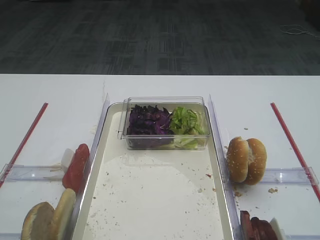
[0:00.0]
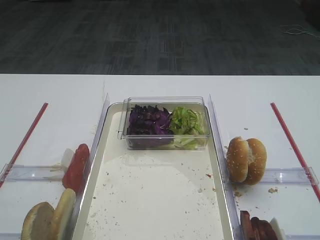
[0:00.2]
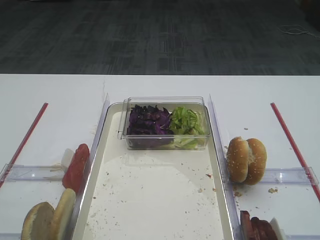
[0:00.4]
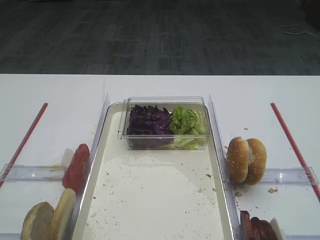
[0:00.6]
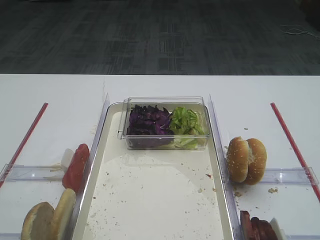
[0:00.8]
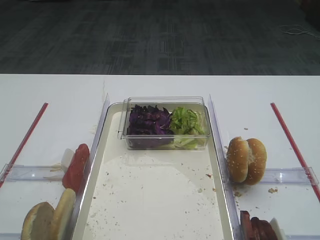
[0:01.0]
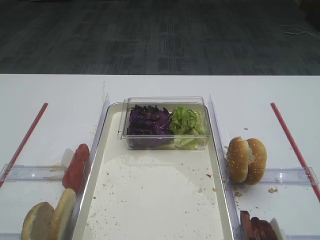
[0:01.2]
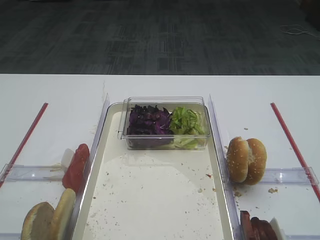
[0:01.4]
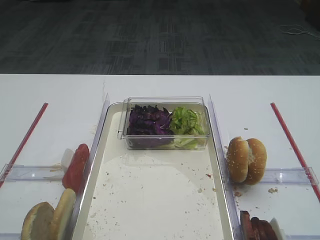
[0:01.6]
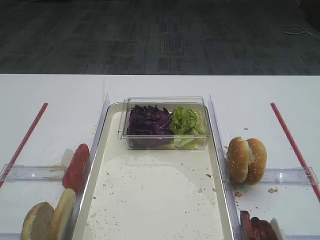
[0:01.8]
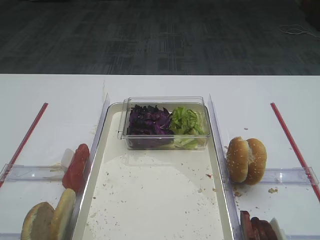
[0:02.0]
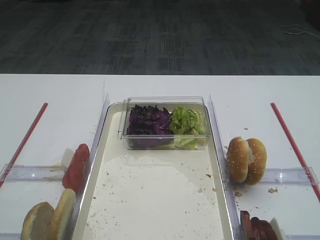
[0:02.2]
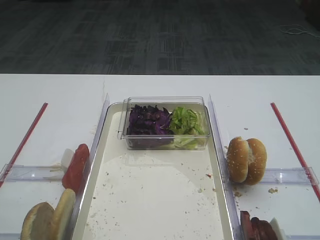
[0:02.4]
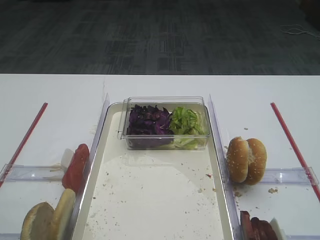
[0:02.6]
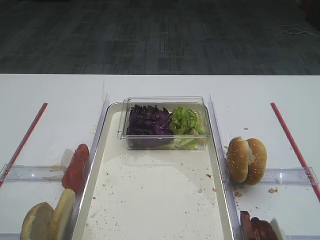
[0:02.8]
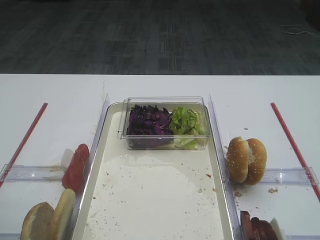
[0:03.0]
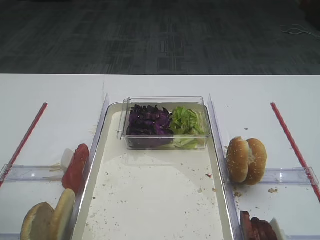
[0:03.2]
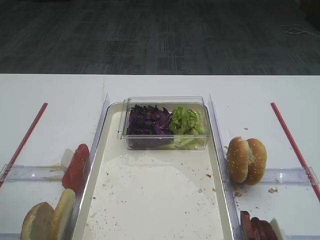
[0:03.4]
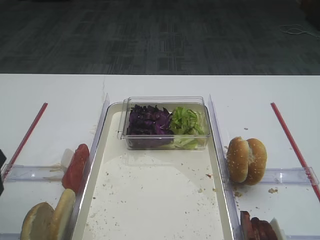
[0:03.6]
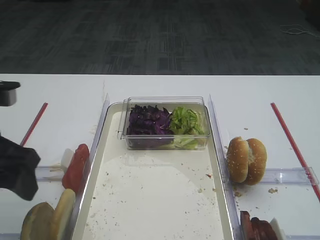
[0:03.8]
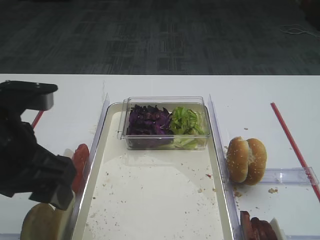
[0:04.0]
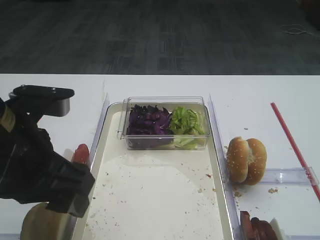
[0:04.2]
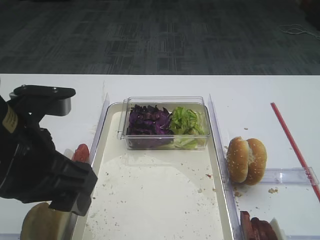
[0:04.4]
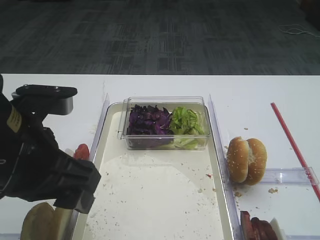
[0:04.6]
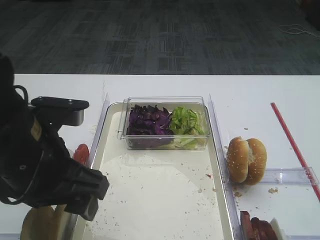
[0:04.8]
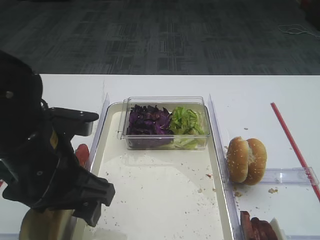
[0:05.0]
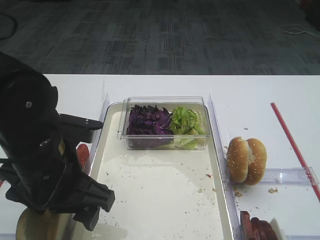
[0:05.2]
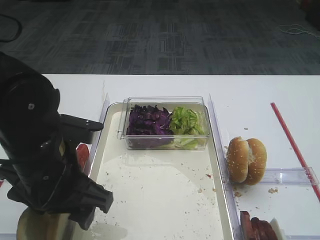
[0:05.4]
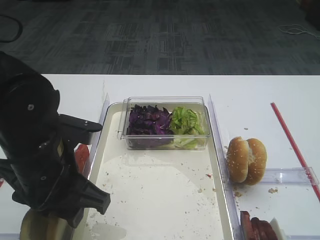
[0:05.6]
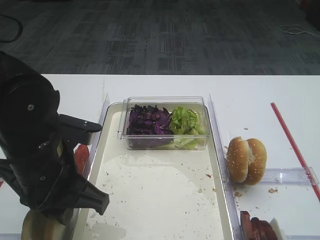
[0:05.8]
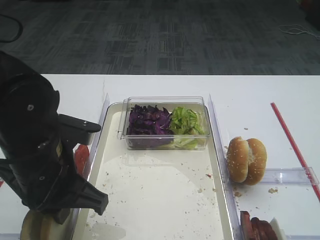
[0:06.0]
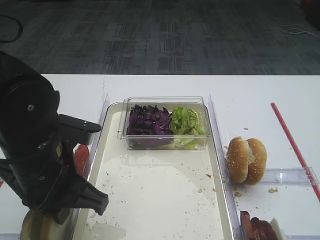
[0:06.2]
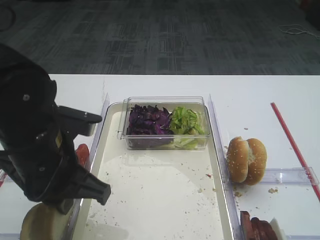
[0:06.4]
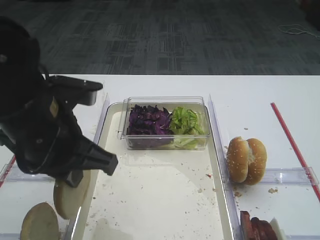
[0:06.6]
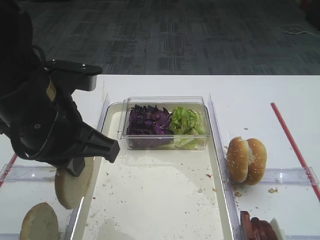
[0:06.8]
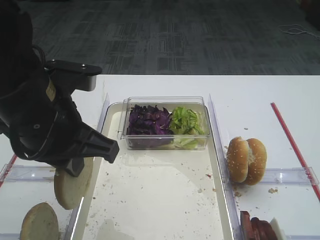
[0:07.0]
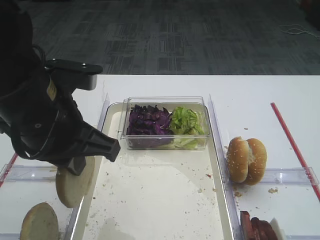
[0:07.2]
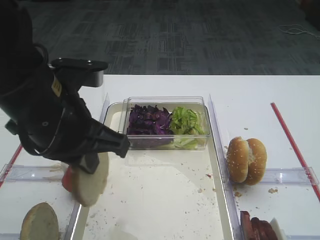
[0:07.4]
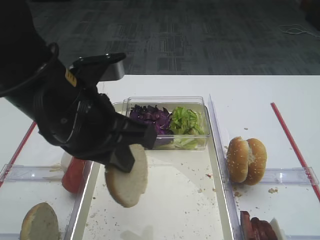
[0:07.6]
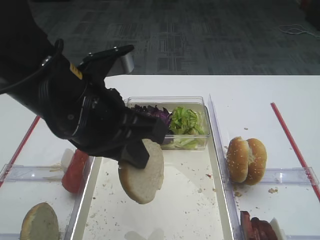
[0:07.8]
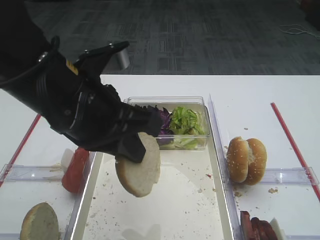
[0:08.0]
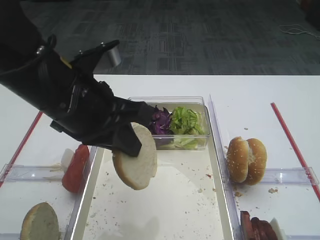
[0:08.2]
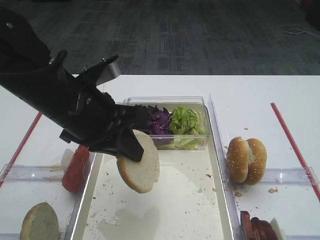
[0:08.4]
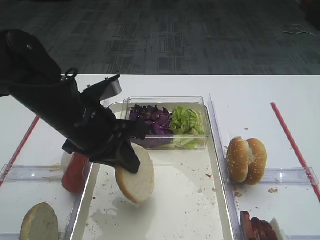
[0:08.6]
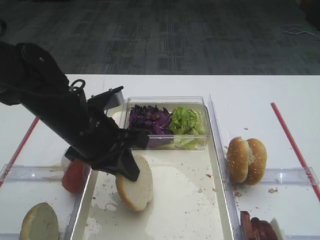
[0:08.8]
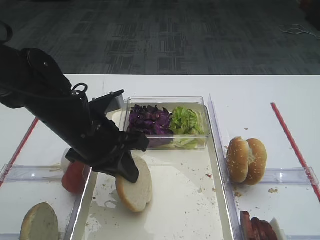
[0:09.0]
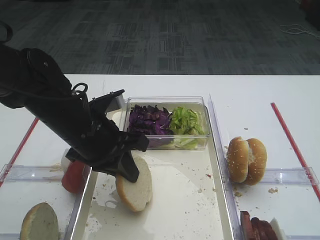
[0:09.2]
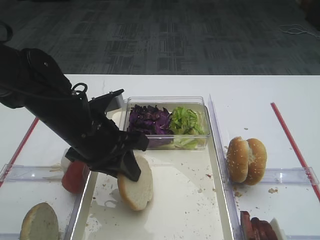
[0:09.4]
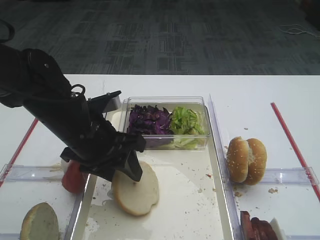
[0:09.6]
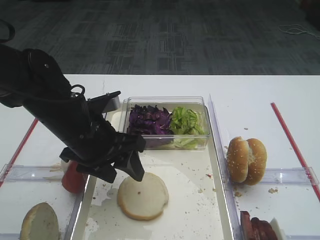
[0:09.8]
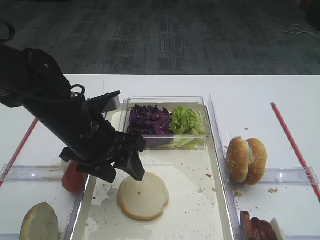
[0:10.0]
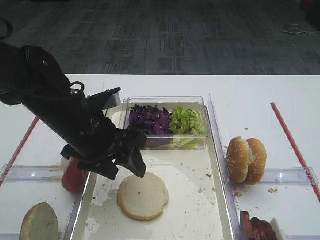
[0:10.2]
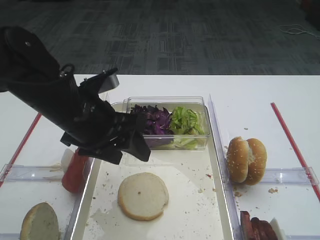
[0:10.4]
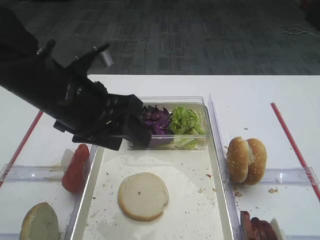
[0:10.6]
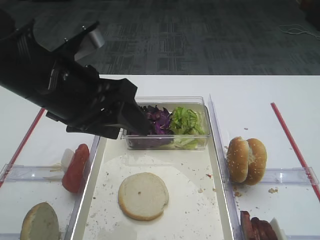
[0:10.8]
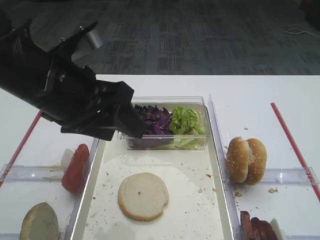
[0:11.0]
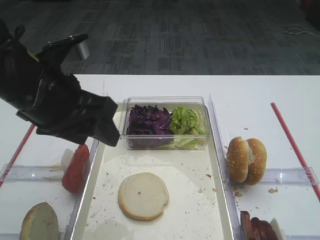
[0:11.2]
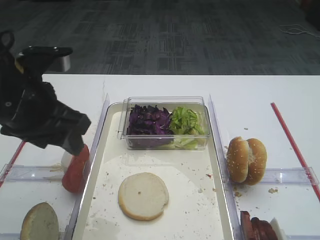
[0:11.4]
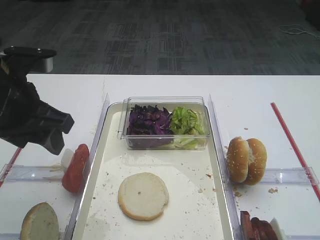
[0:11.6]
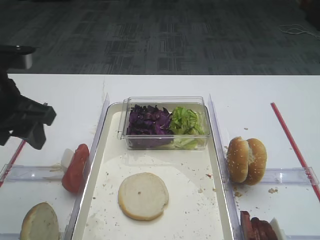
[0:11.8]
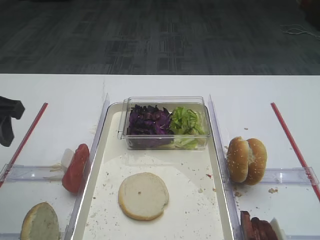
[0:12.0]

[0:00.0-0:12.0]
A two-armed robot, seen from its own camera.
Step, 0:00.0 to 0:06.4: Pick up the bread slice with the left gripper.
Step, 0:06.6 to 0:09.8: Place the bread slice on the tray with the left gripper.
0:03.0 to 0:04.4: The left gripper heads to the right, covering approximately 15 cm.
0:04.4 to 0:06.0: The left gripper is displaced downward by about 5 cm, and closes.
0:06.0 to 0:07.6: The left gripper is displaced upward by some 10 cm.
0:07.6 to 0:09.0: The left gripper is displaced downward and forward by roughly 10 cm.
0:09.0 to 0:10.4: The left gripper opens up.
0:10.4 to 0:12.0: The left gripper shifts some 15 cm to the left.

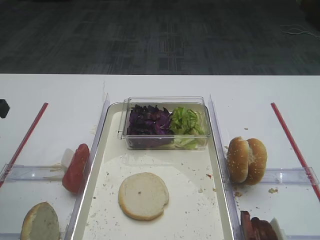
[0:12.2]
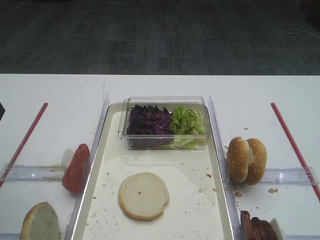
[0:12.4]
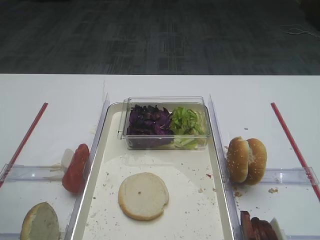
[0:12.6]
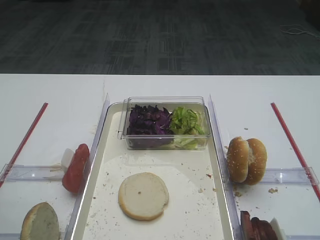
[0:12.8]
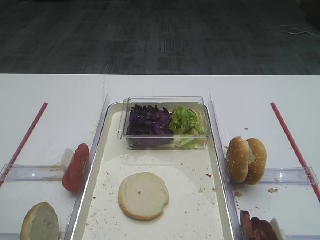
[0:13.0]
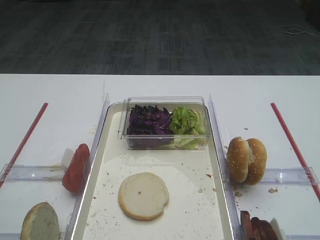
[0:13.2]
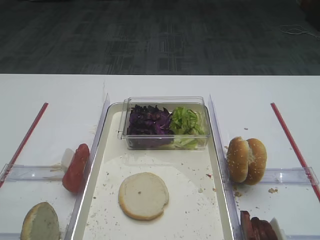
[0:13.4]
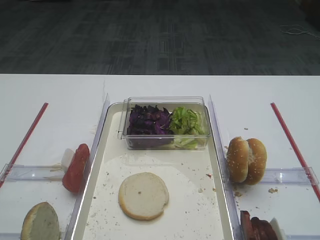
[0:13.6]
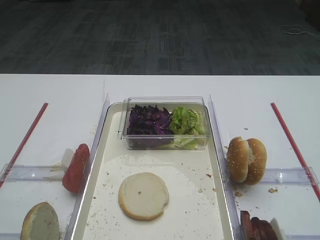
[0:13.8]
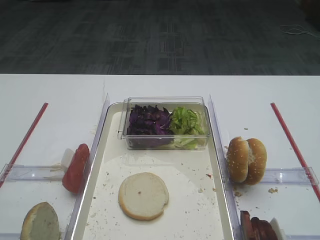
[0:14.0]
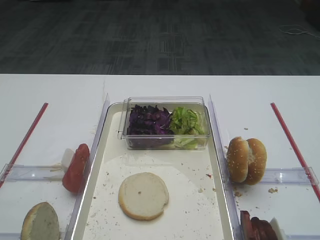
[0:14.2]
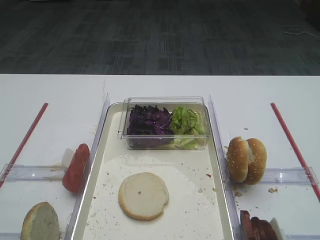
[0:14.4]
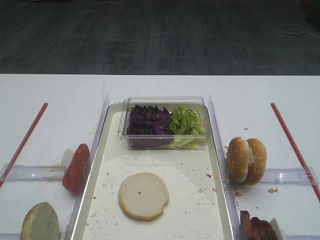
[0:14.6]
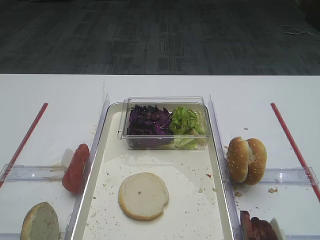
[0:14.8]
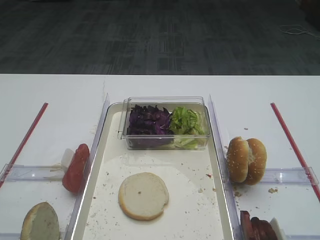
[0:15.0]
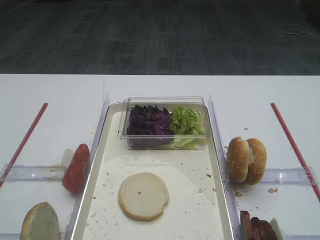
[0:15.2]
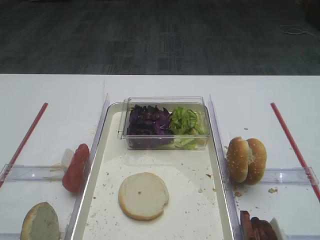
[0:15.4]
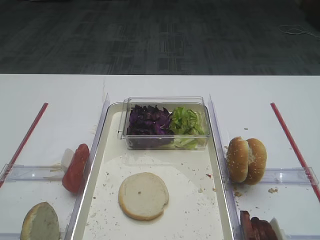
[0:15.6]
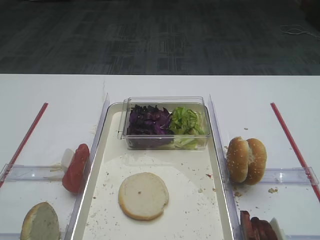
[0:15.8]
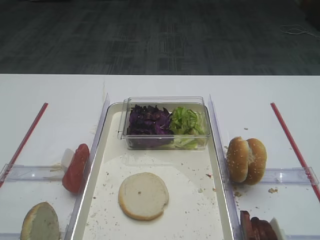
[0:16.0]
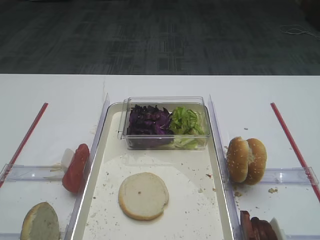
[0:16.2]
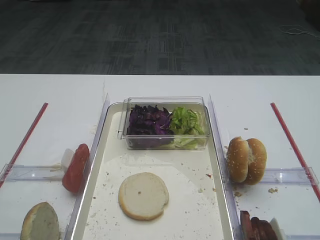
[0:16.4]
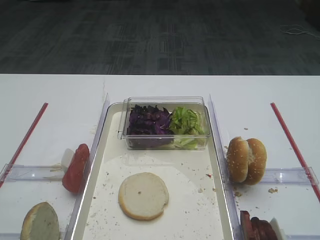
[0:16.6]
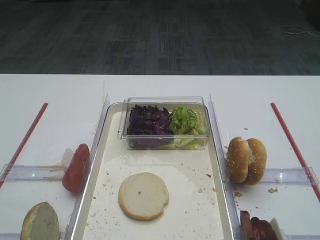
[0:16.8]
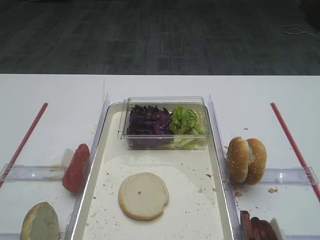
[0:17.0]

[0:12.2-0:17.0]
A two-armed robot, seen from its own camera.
0:12.2 to 0:13.8: The left gripper heads backward, covering approximately 20 cm.
0:15.4 to 0:17.0: Both grippers stay about where they are.

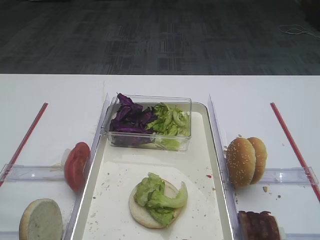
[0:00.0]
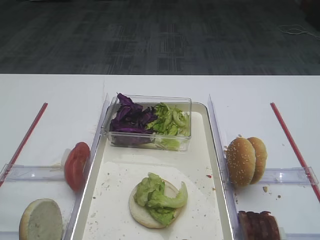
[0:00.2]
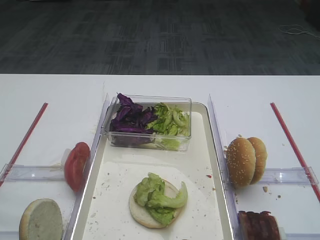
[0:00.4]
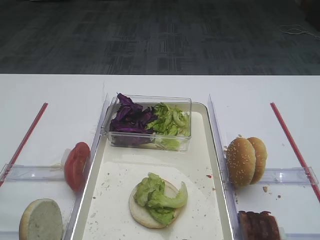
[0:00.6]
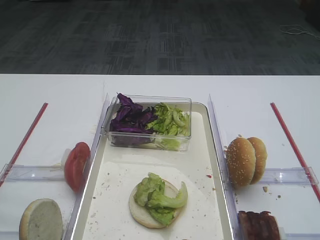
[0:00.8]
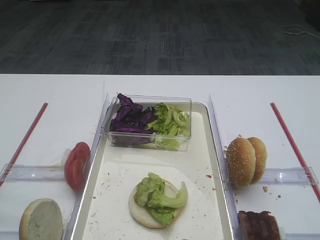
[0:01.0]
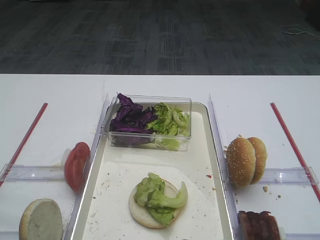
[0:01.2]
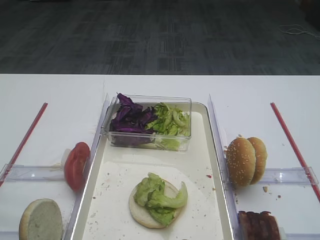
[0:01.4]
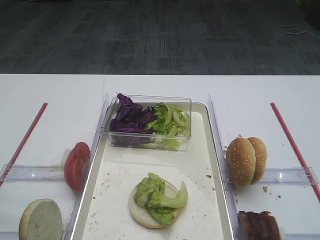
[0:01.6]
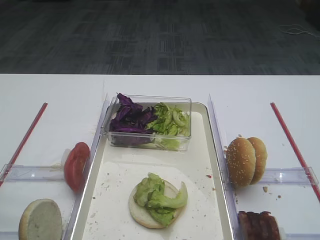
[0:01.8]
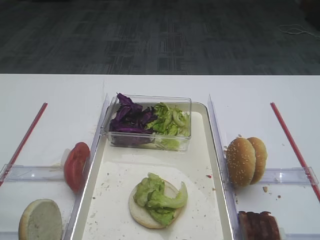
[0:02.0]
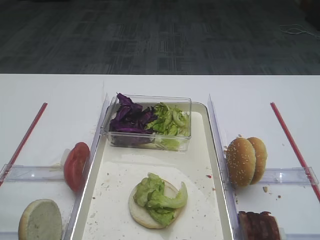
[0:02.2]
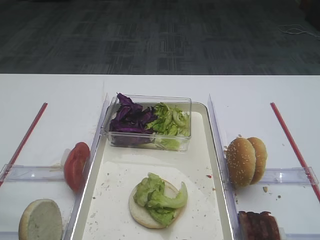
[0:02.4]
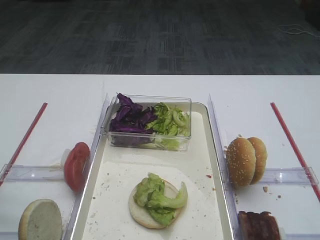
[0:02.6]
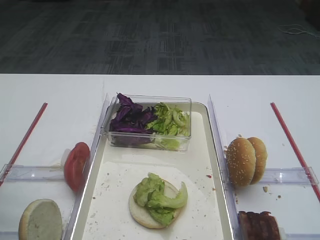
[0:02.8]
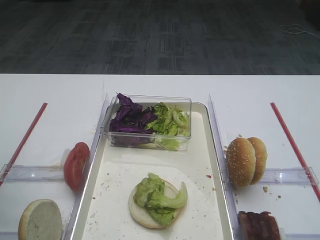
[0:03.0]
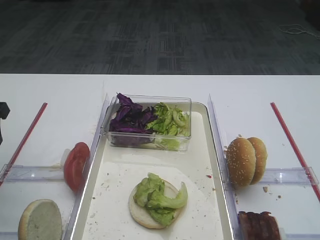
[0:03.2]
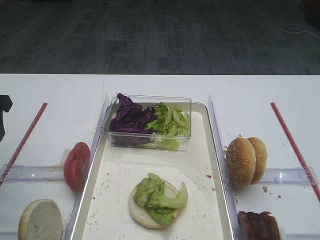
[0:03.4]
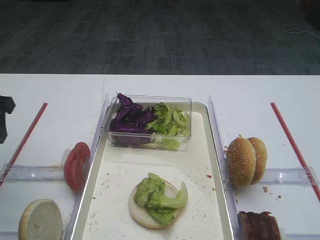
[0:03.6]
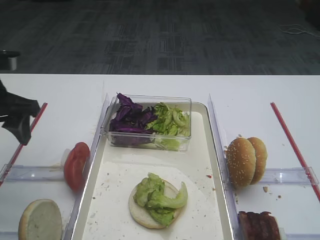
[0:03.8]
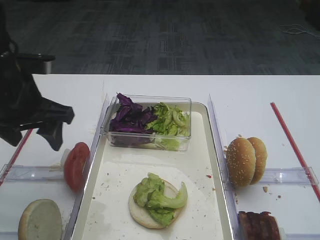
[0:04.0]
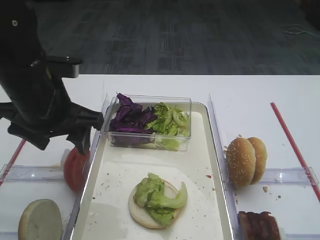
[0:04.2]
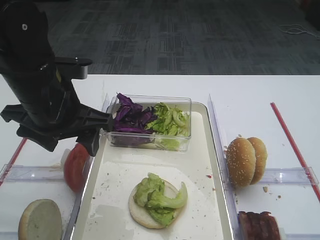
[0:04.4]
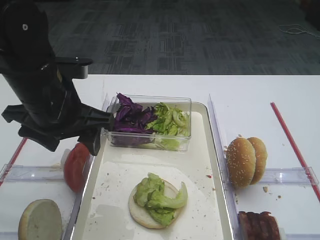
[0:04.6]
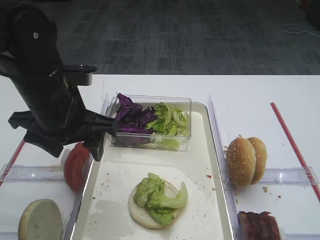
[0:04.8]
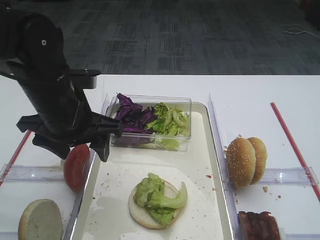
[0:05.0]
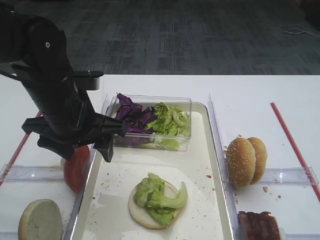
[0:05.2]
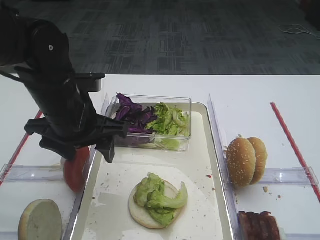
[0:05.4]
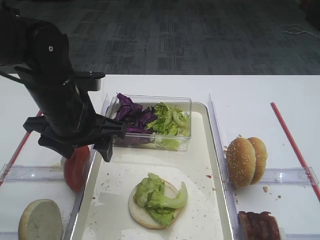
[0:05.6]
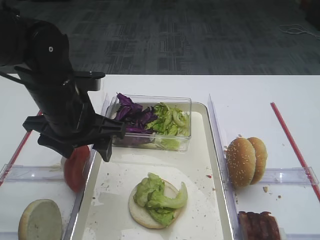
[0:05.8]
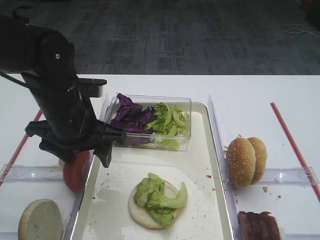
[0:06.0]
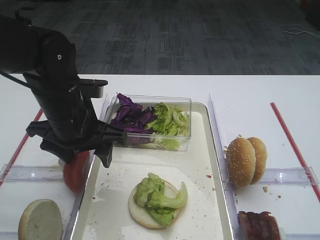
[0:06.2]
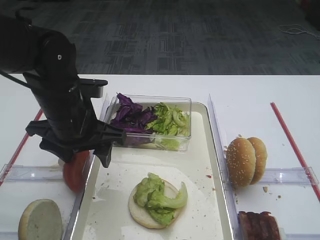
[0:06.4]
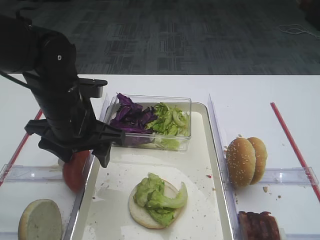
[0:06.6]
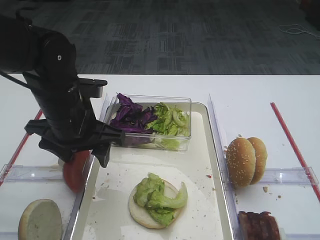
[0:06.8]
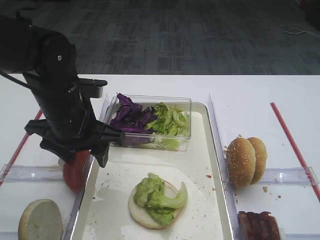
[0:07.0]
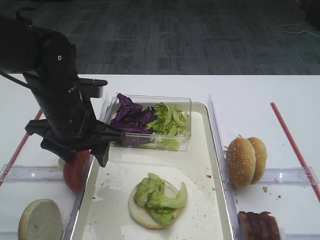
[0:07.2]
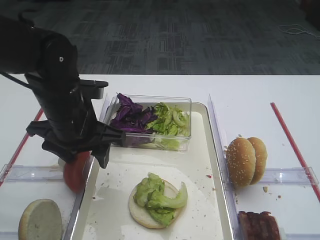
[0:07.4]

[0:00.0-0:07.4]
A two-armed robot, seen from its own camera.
0:01.4 to 0:03.0: The left gripper is displaced forward by some 20 cm.
0:03.0 to 0:04.4: The left gripper goes about 15 cm to the right.
0:04.4 to 0:06.0: The left gripper shifts by about 5 cm.
0:06.0 to 0:07.4: Both grippers stay about where they are.
